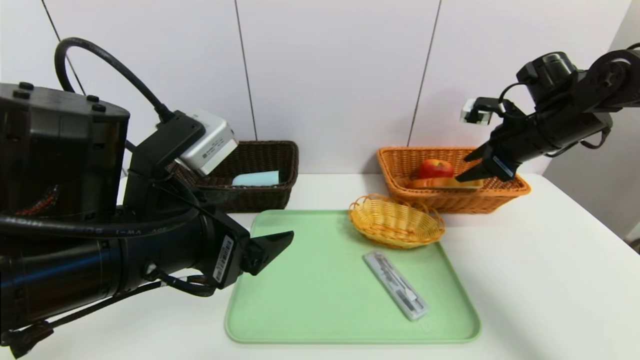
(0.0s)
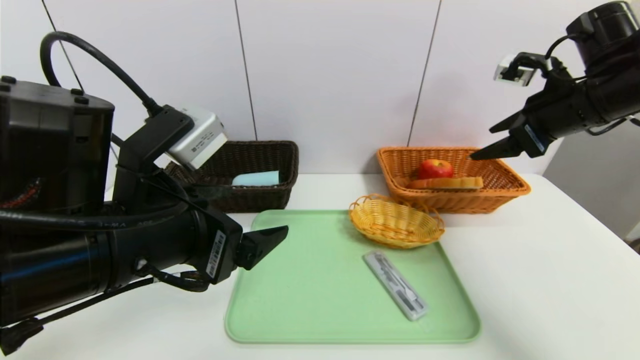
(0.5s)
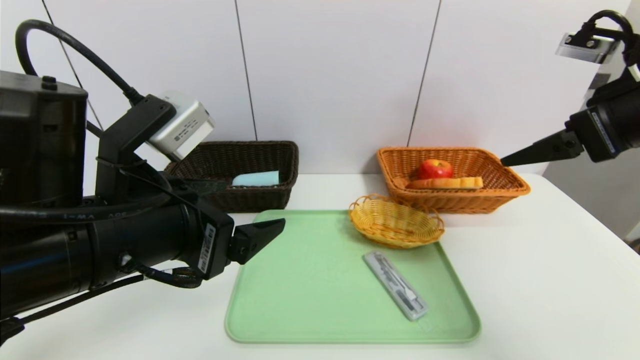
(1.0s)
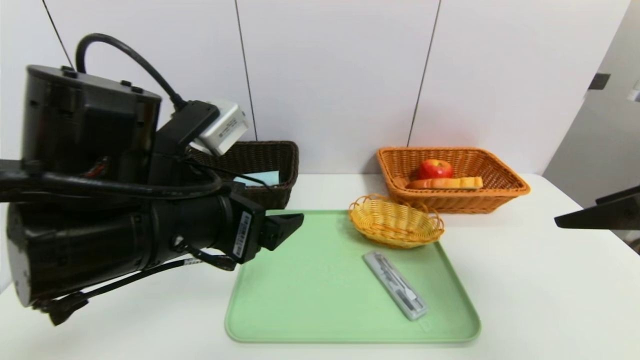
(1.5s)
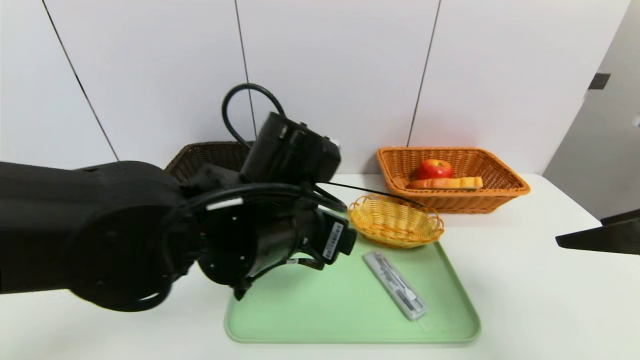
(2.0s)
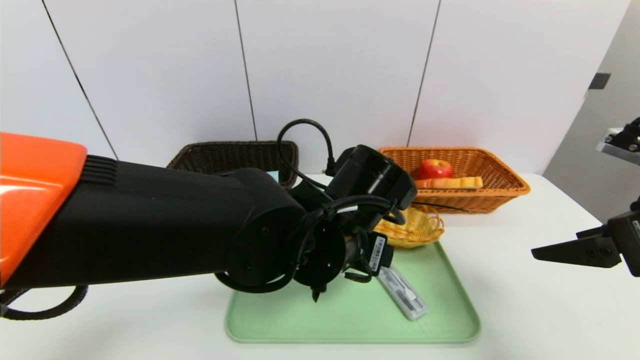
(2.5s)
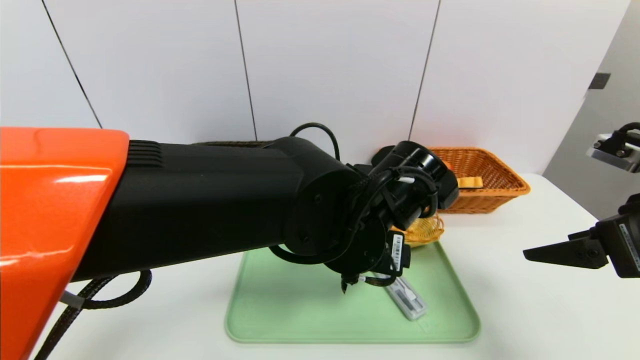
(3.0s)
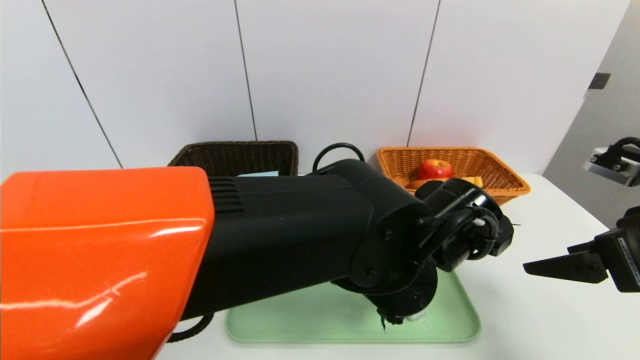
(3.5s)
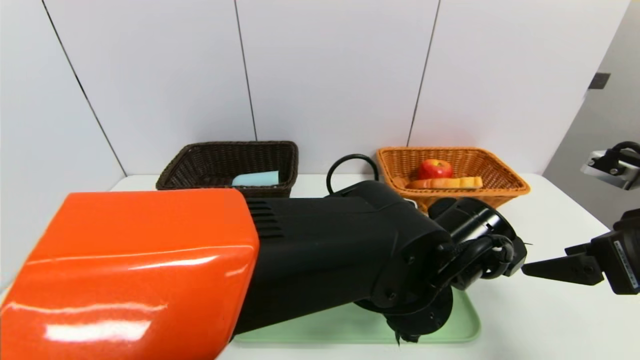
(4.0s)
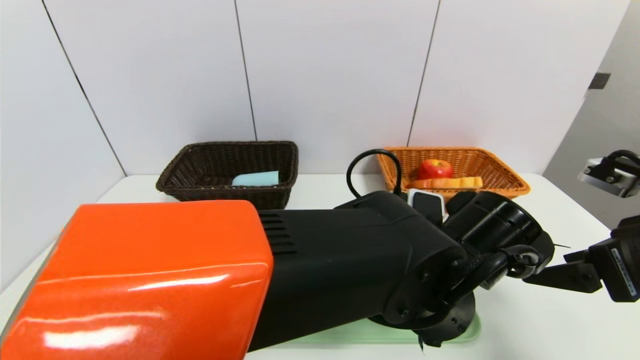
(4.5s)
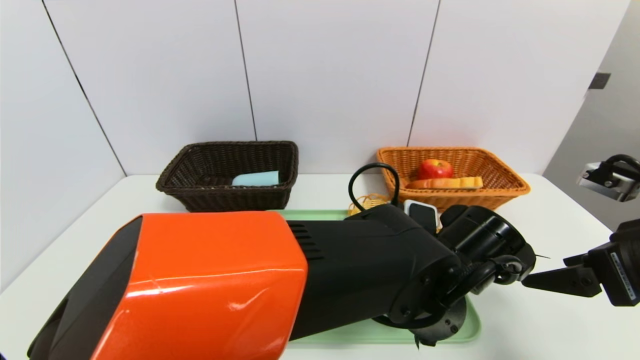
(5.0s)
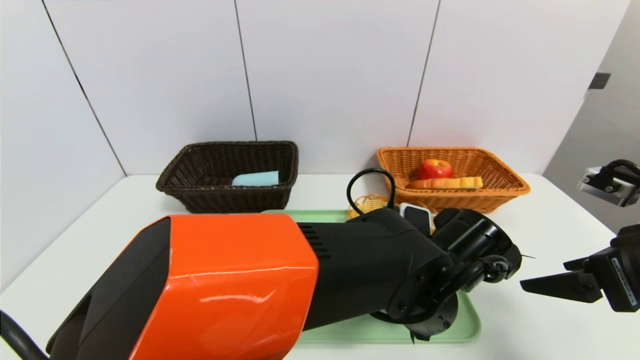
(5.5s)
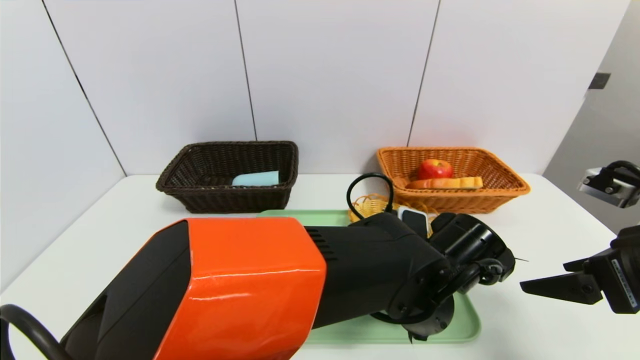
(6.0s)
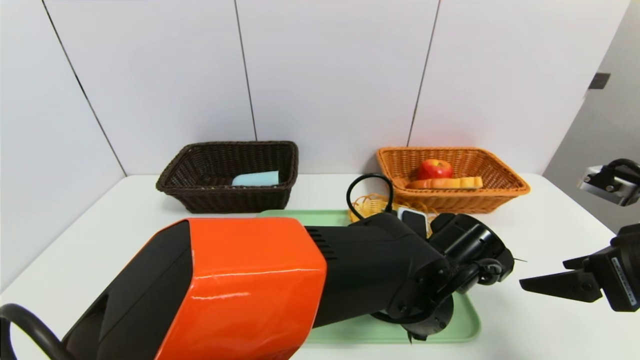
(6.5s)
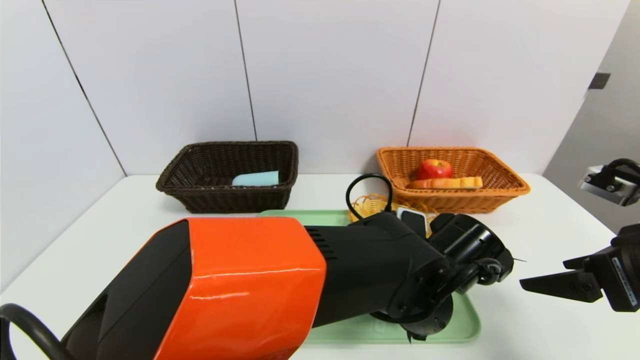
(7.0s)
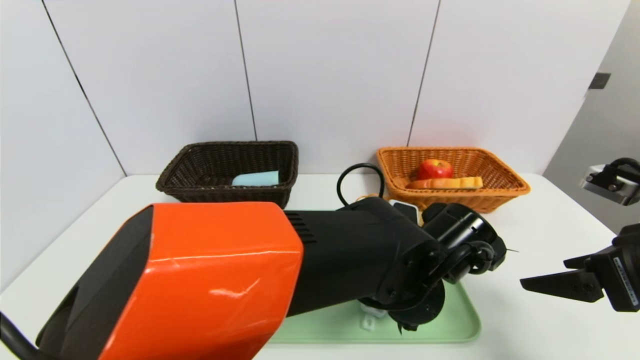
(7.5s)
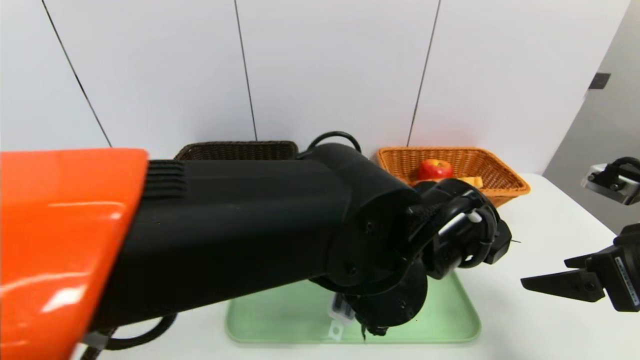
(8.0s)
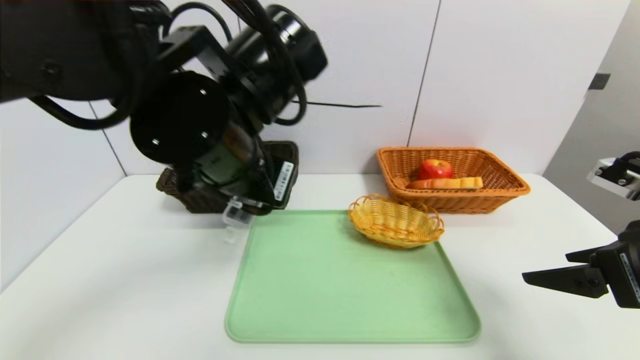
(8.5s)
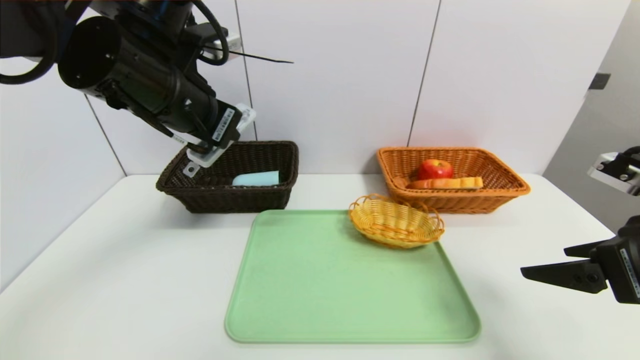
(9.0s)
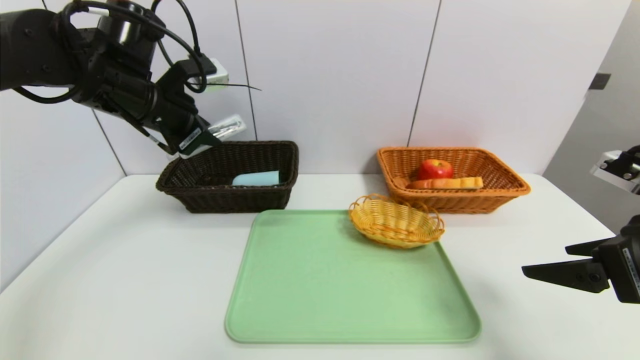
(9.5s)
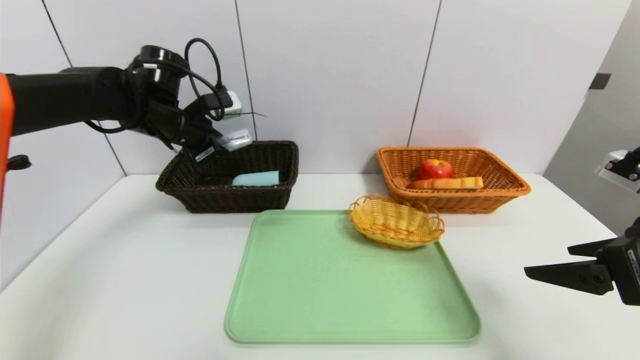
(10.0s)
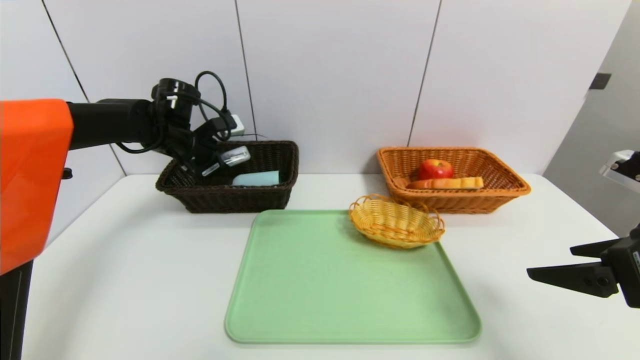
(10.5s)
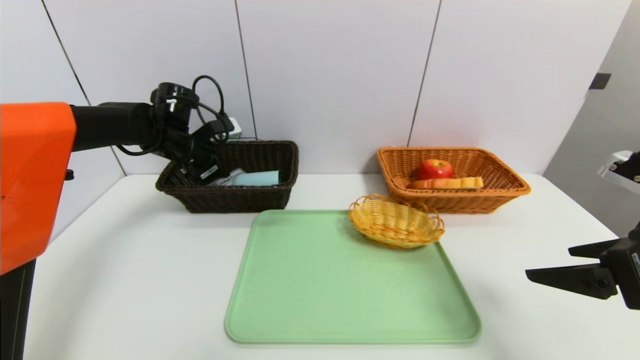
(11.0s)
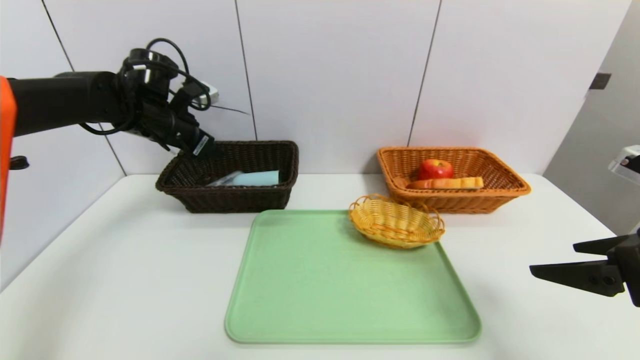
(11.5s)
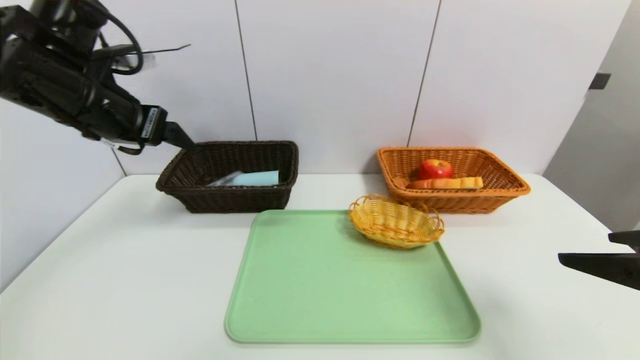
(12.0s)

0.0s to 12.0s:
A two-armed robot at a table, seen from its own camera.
Task of the whole recording: place the food in the right basket with the right gripper, and place the non food items in the left basket with the left gripper.
Step, 0.5s to 11.0s: Grasp the compass and put it in the left basket.
0.0s to 2.0s: The right gripper is displaced backward by roughly 25 cm, and opens. The left gripper is displaced to the right and forward by some 10 cm.
2.0s to 4.0s: The left gripper shifts some 15 cm to the right and downward, while the right gripper shifts about 5 cm downward.
4.0s to 6.0s: The left gripper changes place by some 5 cm.
6.0s to 8.0s: The left gripper travels upward and to the left by approximately 10 cm, and closes up.
8.0s to 10.0s: The left gripper is displaced to the left and forward by some 35 cm.
10.0s to 12.0s: The left gripper goes approximately 15 cm backward and upward, and opens up.

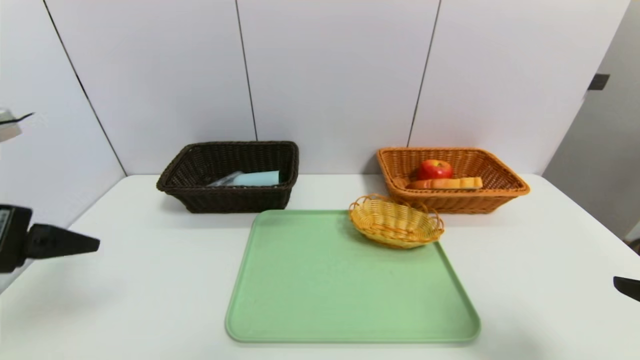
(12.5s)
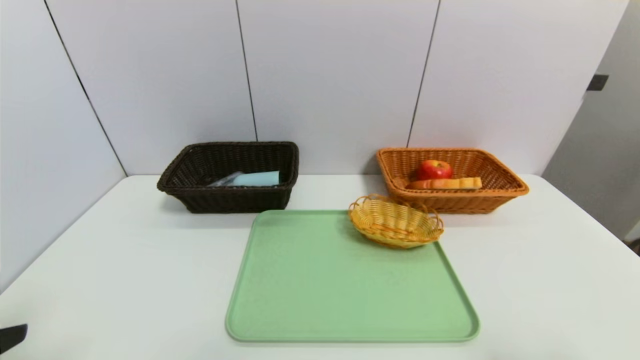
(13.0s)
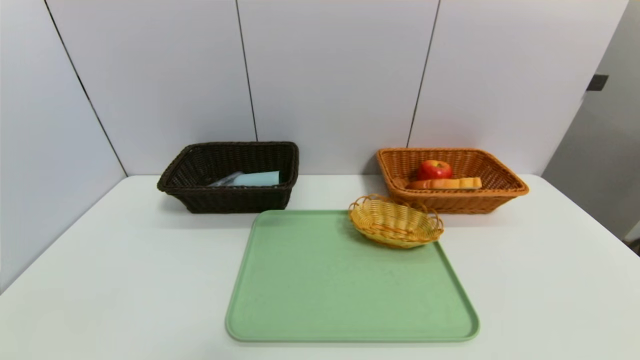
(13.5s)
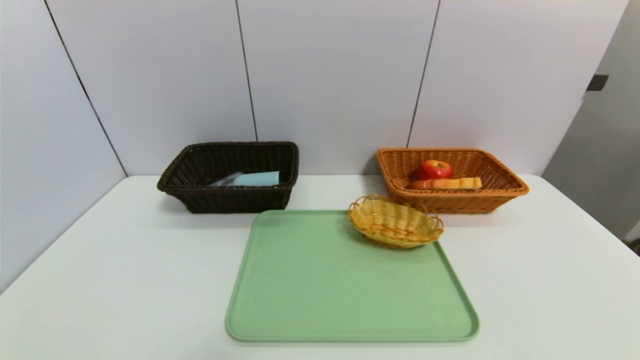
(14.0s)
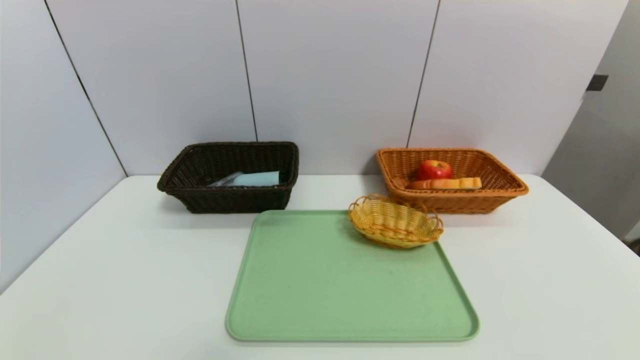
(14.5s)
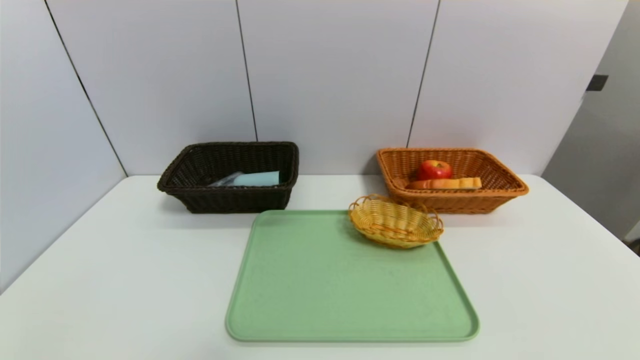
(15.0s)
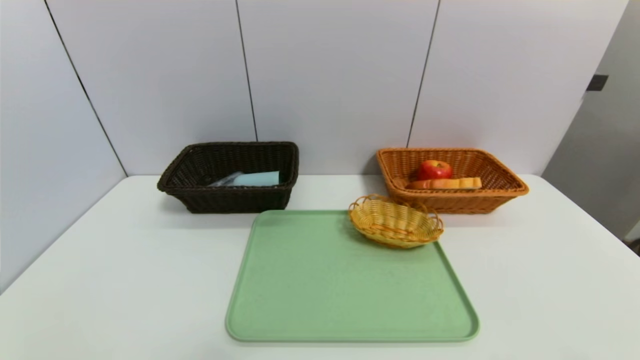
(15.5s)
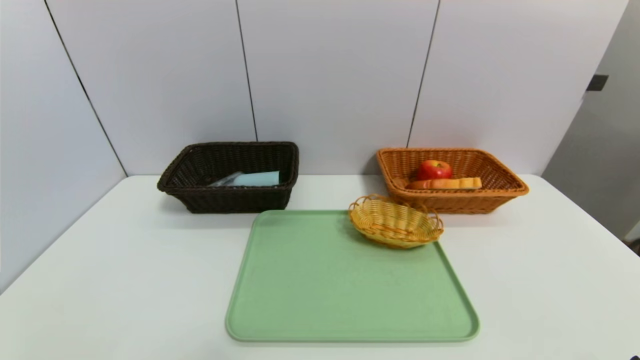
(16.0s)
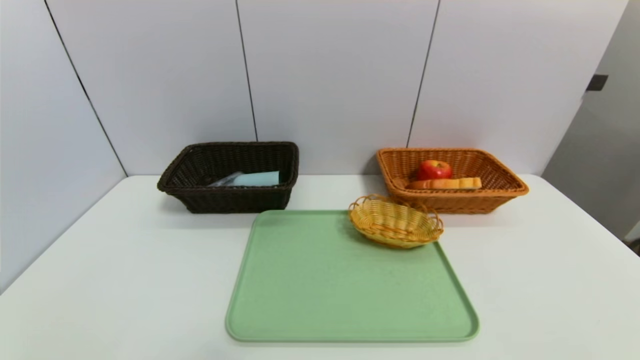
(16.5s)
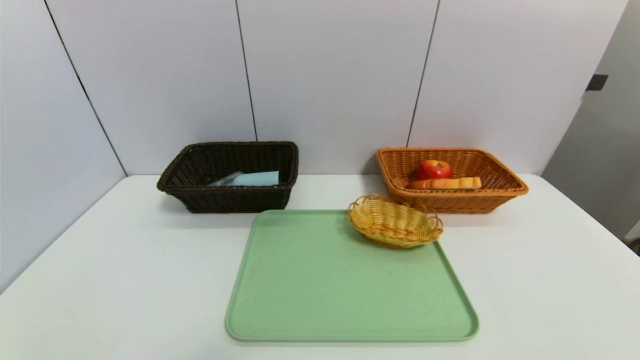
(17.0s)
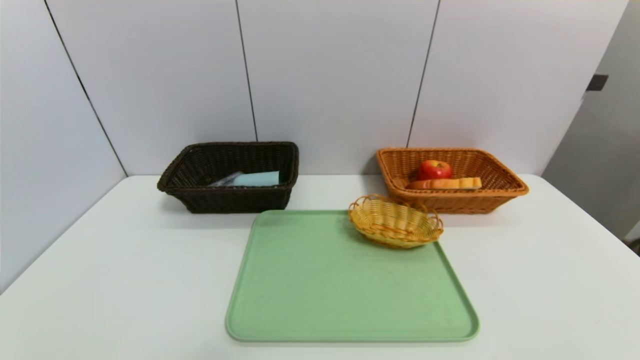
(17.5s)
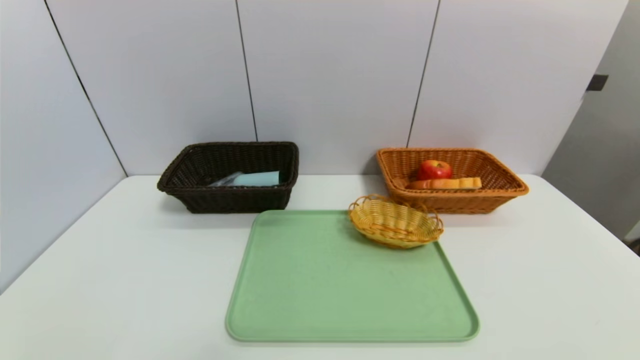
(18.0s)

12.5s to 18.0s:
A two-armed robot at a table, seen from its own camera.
Task of the whole recording: place the food in the right basket with the right gripper, and place the non food items in the left basket with the left gripper.
12.5s to 14.5s: The left gripper is displaced downward and backward by some 25 cm. The right gripper travels backward and downward by about 15 cm.

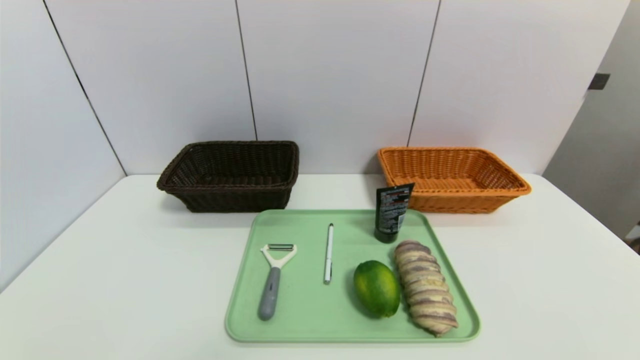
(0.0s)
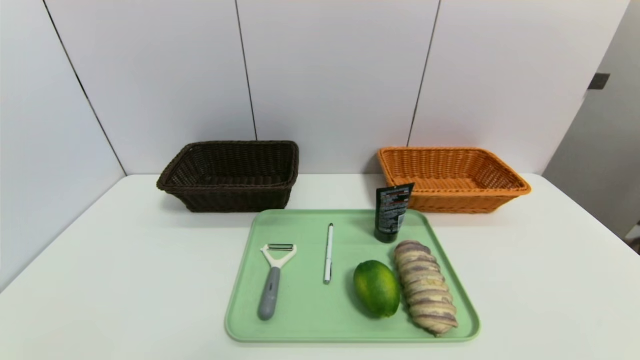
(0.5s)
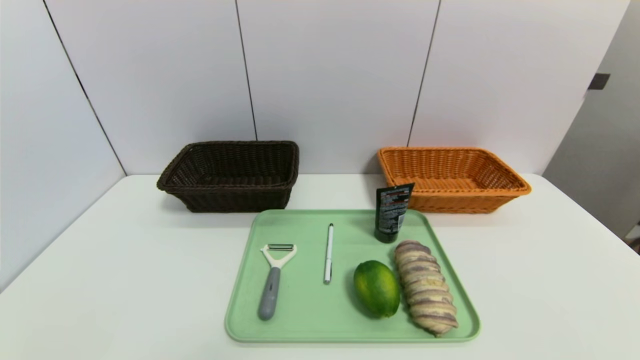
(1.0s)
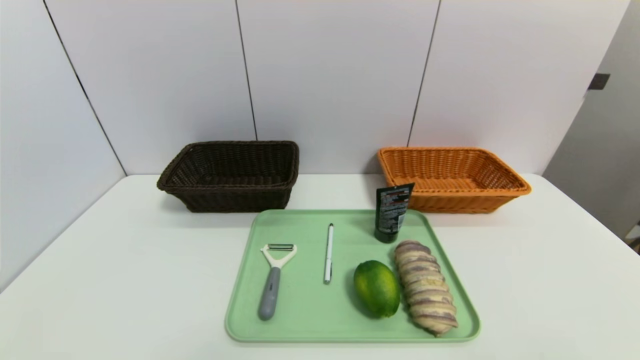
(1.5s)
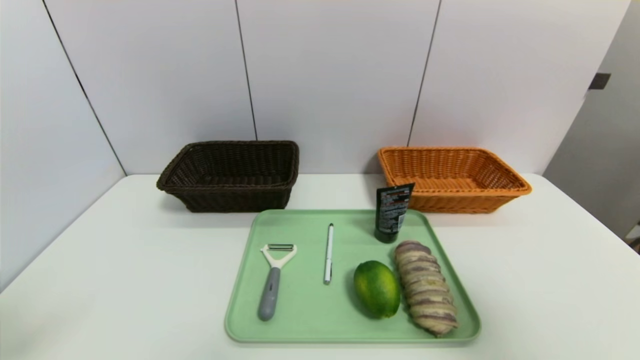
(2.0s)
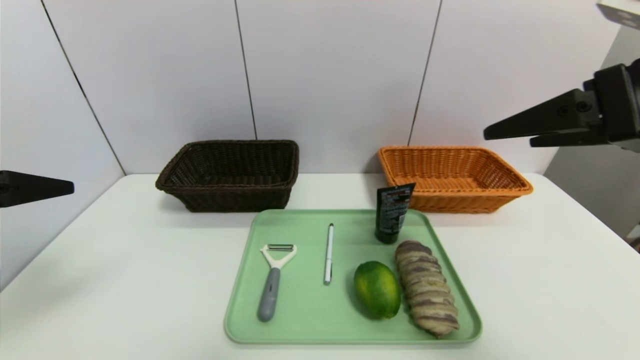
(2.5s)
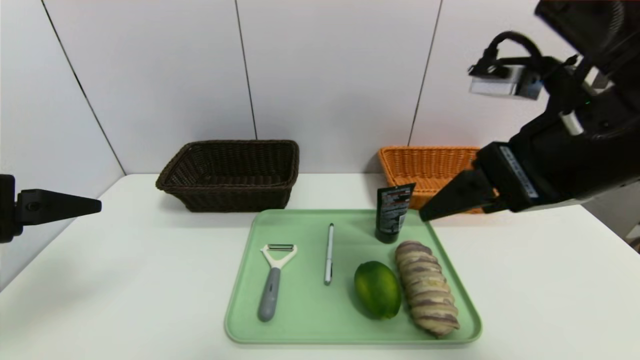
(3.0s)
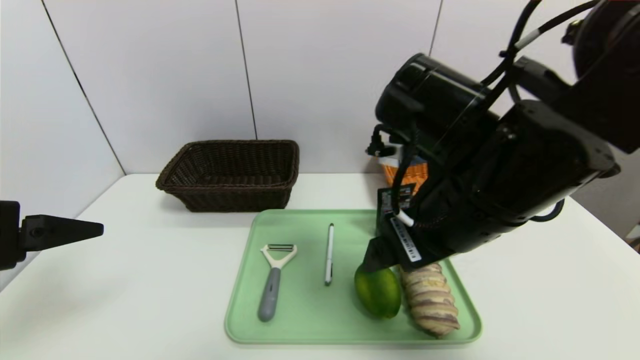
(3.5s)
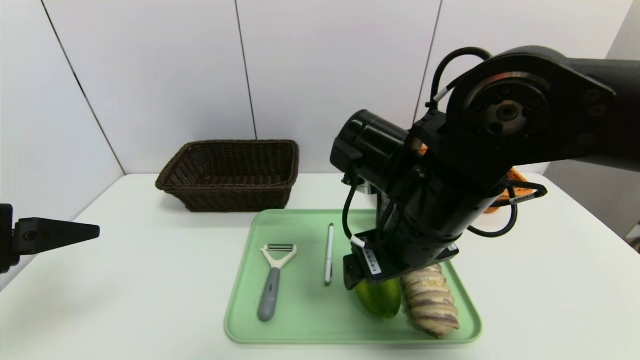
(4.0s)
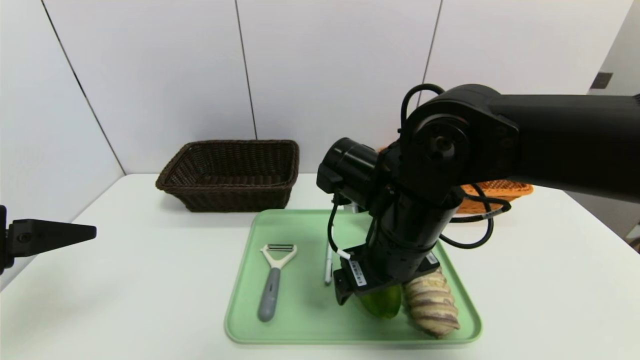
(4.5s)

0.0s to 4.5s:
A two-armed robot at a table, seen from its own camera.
Task of the whole recording: place the food in the right basket with the right gripper, and place the non food items in the left basket with the left gripper.
0.0s to 2.0s: Both grippers move upward, about 25 cm.
2.0s to 4.5s: The left gripper goes approximately 5 cm forward. The right gripper heads to the left, downward and forward, covering some 35 cm.
